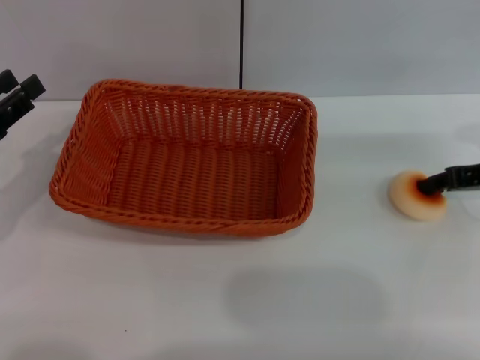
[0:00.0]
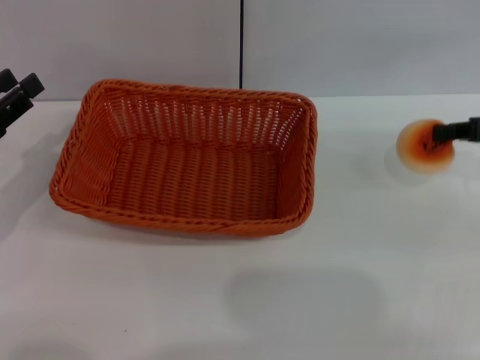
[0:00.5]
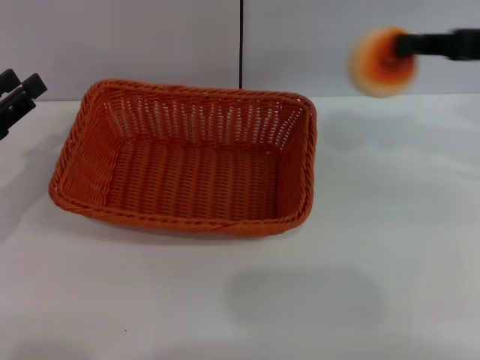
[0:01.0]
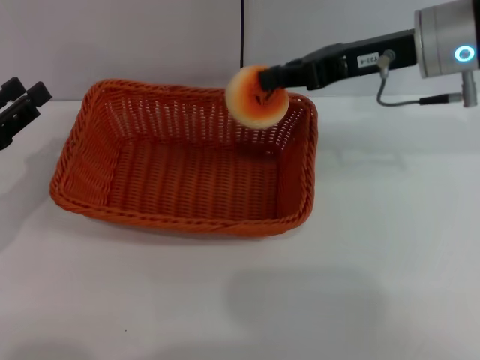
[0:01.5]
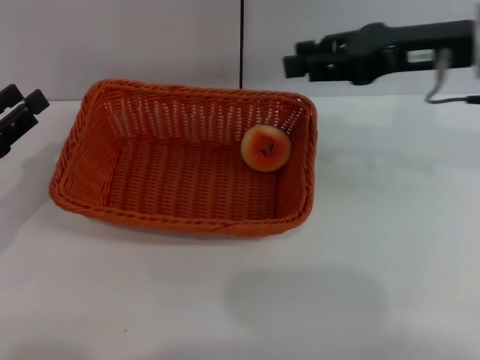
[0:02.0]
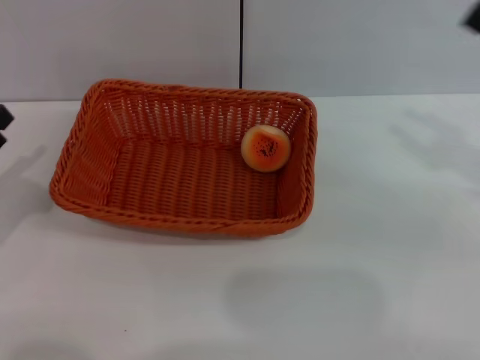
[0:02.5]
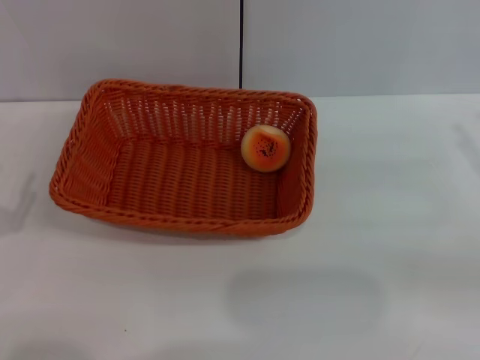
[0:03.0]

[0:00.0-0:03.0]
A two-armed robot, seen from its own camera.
Step, 0:01.0 to 0:02.0: Place the egg yolk pastry into the basket with the right gripper.
0:00.0 to 0:01.5: The right gripper moves to the left and upward, some 15 cm, and closes up.
0:01.5 to 0:03.0: The left gripper heads backward, covering some 10 cm. Meanwhile the right gripper heads to the right, backward and downward, covering roughly 25 cm, and opens its fingers.
